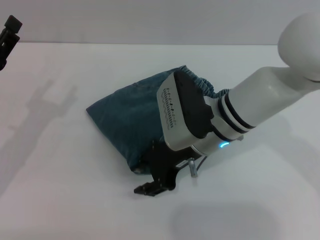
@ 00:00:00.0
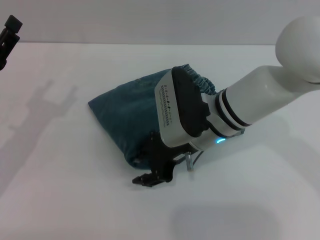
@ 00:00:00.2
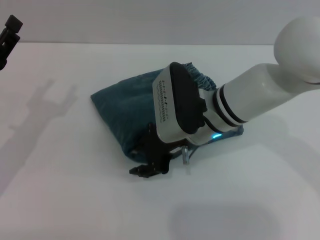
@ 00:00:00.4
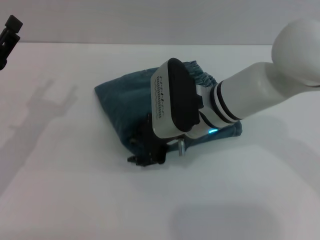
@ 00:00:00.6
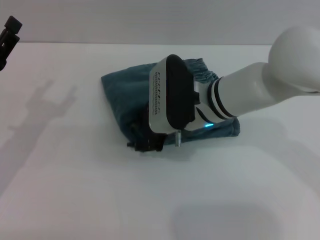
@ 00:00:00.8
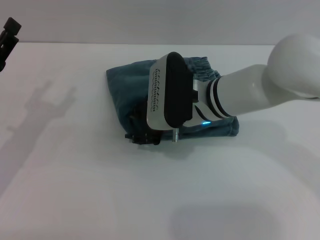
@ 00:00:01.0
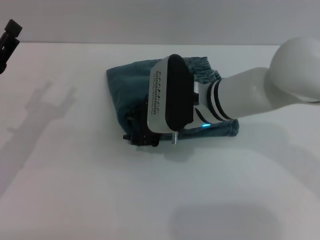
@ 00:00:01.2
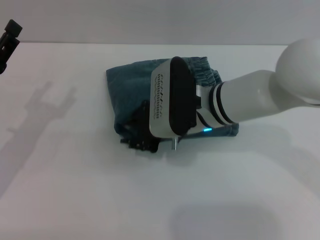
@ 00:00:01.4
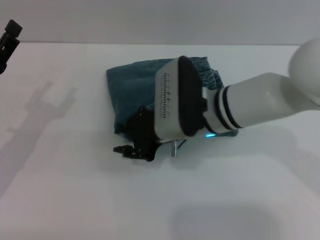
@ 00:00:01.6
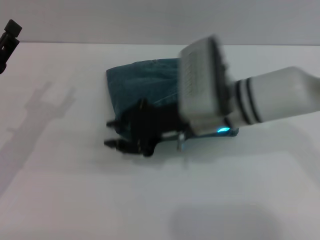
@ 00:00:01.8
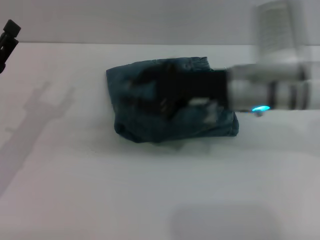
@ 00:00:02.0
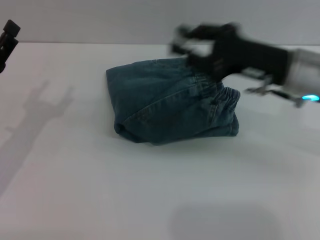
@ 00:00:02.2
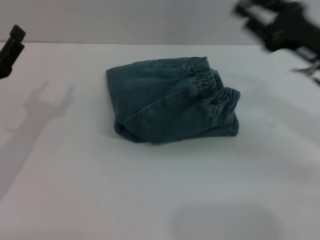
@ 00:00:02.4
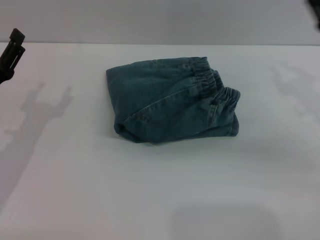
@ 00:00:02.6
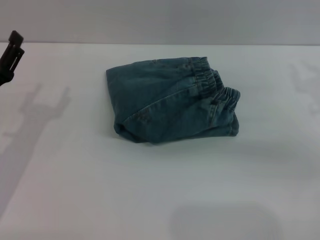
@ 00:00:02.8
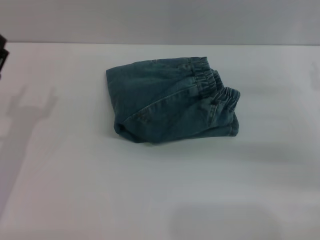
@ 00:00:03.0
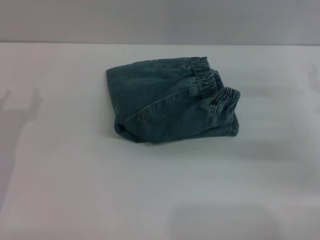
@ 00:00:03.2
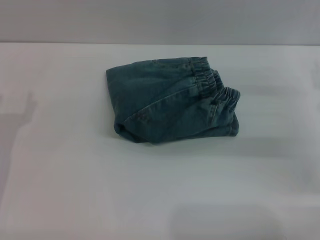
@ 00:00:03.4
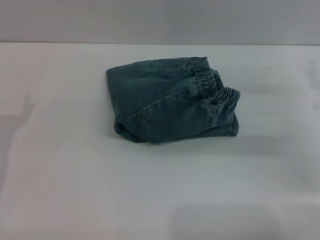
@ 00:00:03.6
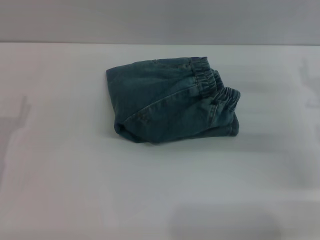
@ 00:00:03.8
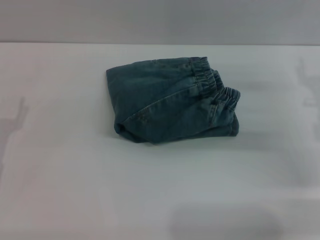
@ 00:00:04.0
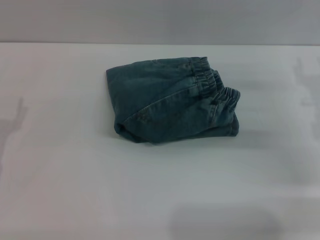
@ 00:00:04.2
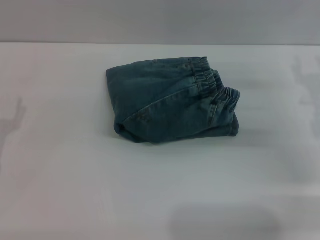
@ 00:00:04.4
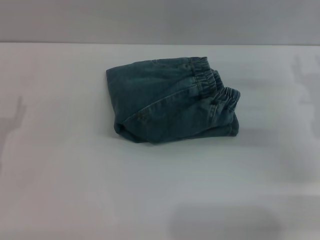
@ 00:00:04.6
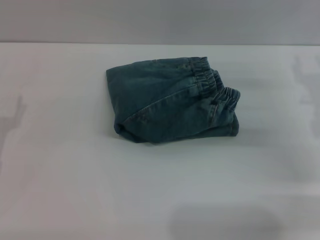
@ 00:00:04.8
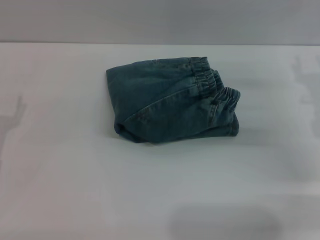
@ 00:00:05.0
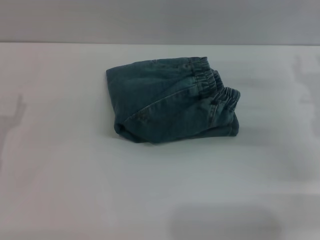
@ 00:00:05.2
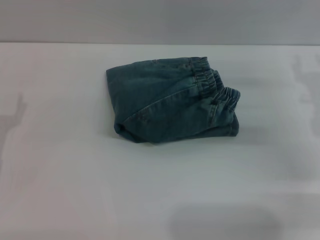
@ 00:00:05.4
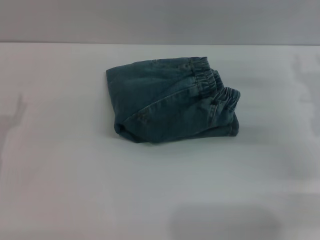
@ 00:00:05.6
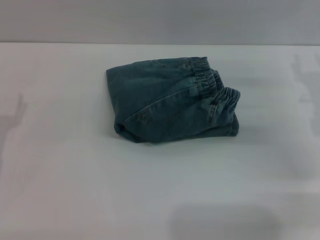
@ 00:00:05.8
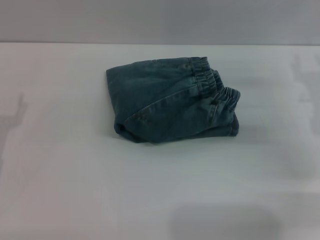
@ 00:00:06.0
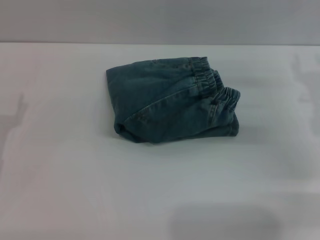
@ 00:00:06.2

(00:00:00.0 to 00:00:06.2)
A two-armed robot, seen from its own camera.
00:00:01.6 - 00:00:03.2: The right gripper shifts about 25 cm to the right.
00:00:04.6 - 00:00:06.2: Both grippers stay about where they are.
